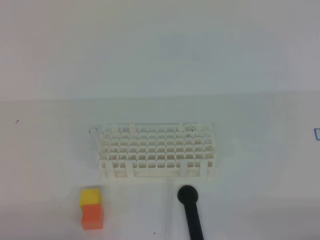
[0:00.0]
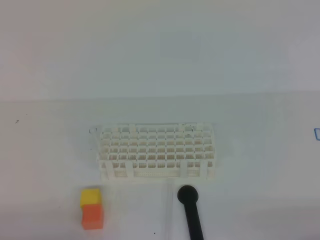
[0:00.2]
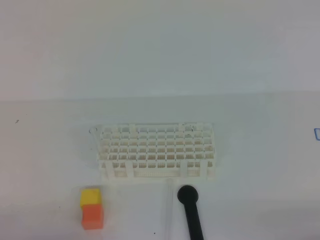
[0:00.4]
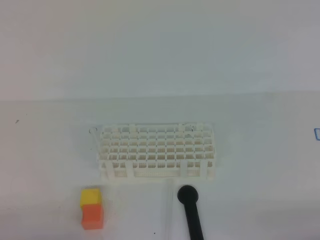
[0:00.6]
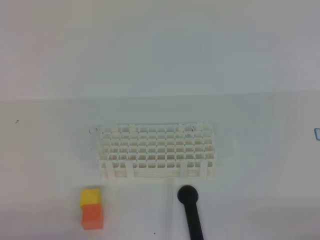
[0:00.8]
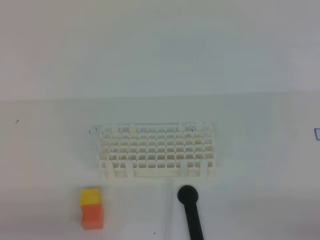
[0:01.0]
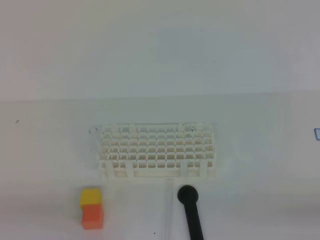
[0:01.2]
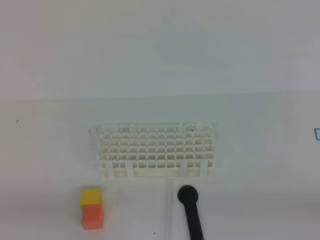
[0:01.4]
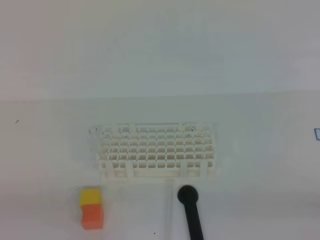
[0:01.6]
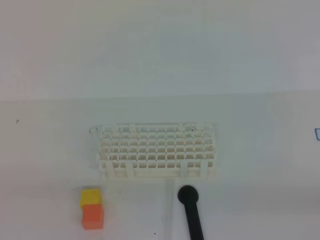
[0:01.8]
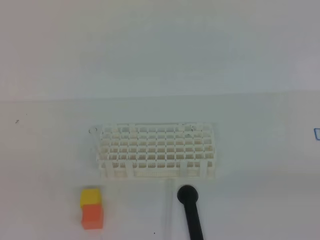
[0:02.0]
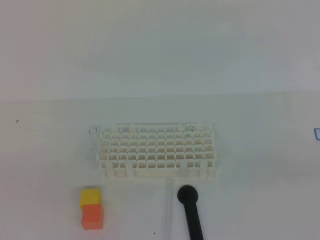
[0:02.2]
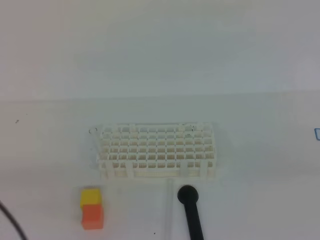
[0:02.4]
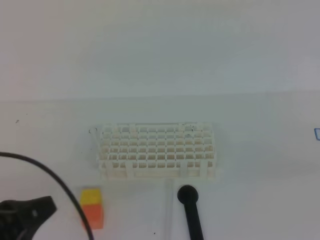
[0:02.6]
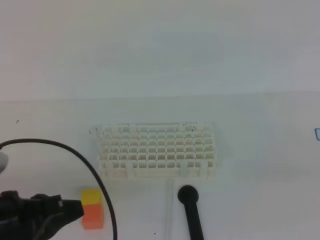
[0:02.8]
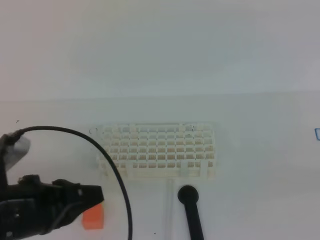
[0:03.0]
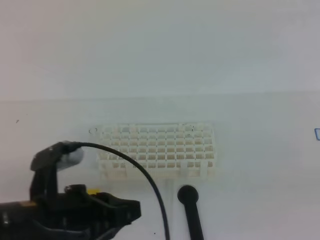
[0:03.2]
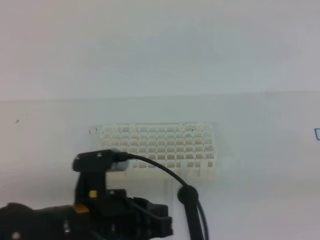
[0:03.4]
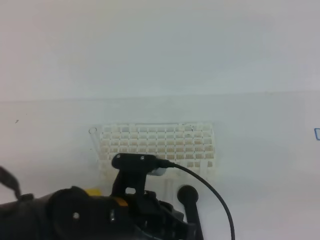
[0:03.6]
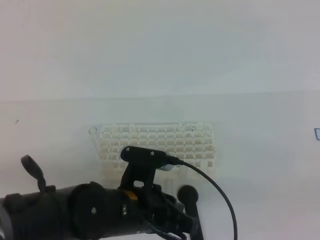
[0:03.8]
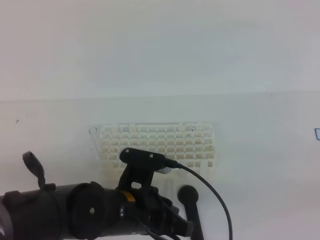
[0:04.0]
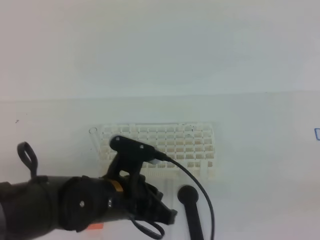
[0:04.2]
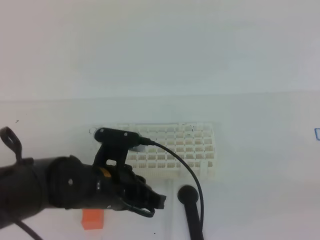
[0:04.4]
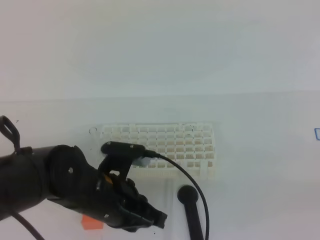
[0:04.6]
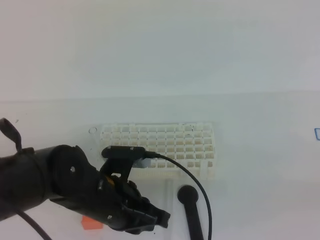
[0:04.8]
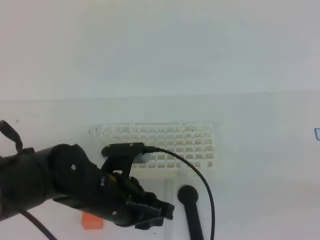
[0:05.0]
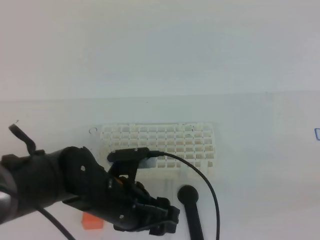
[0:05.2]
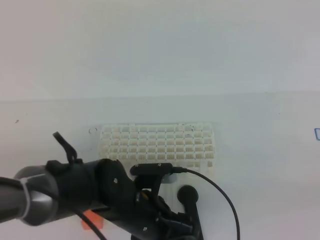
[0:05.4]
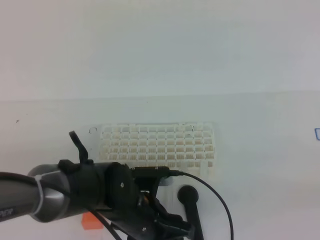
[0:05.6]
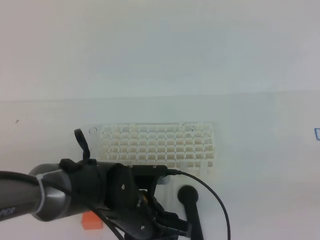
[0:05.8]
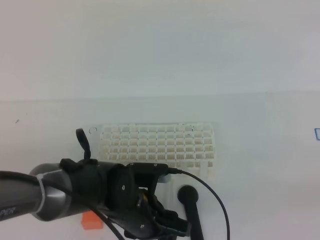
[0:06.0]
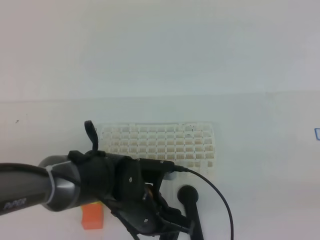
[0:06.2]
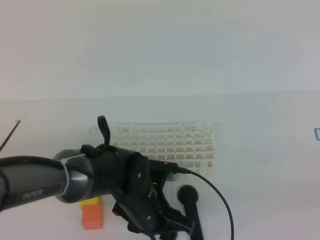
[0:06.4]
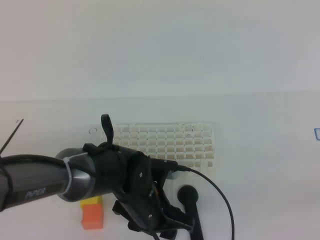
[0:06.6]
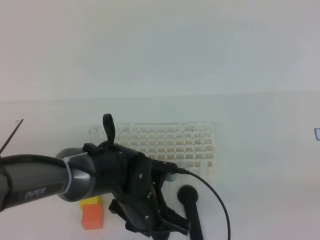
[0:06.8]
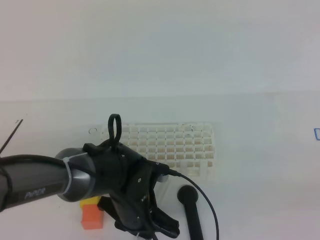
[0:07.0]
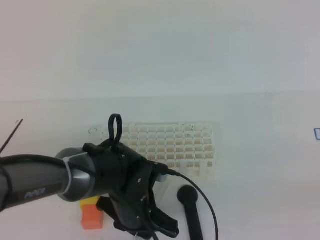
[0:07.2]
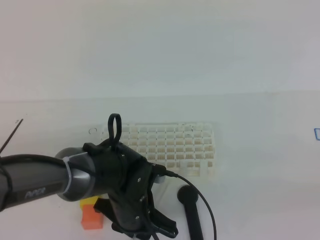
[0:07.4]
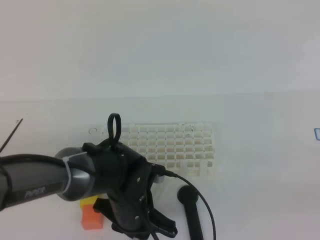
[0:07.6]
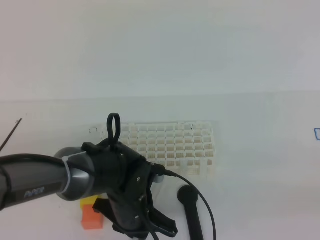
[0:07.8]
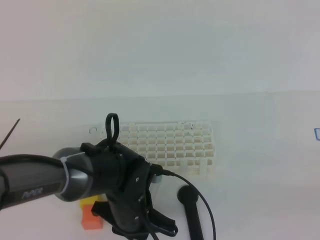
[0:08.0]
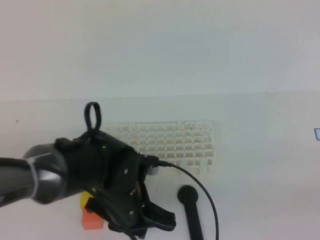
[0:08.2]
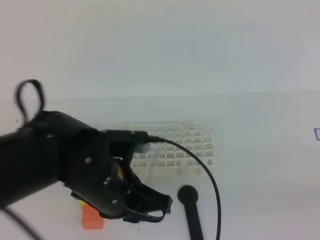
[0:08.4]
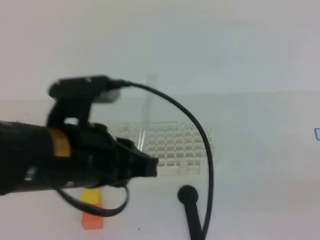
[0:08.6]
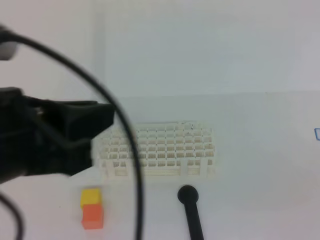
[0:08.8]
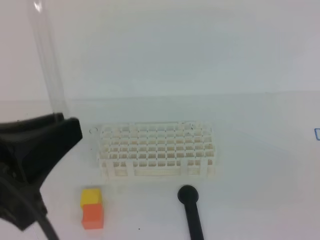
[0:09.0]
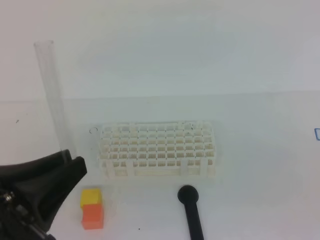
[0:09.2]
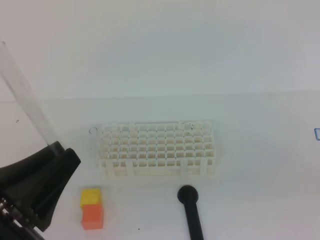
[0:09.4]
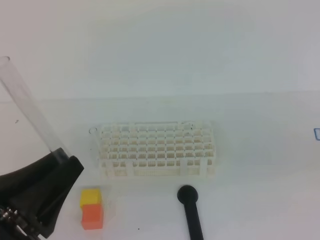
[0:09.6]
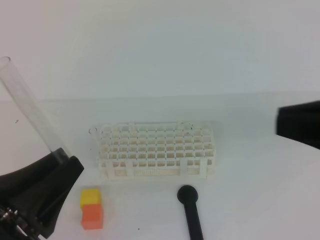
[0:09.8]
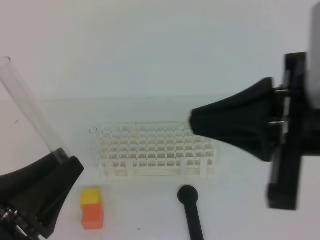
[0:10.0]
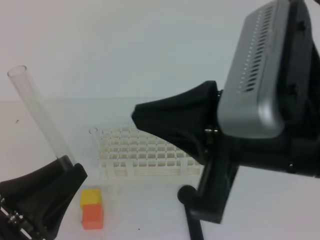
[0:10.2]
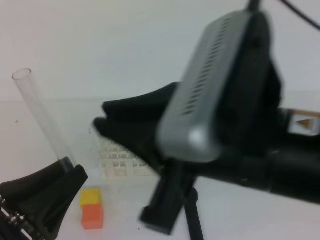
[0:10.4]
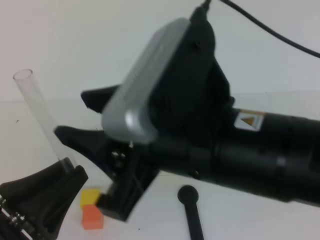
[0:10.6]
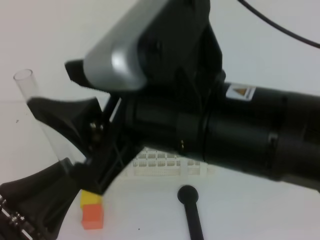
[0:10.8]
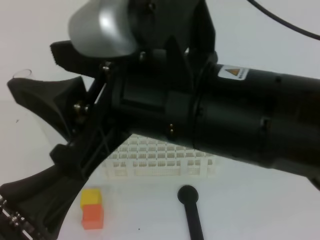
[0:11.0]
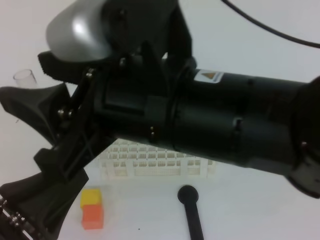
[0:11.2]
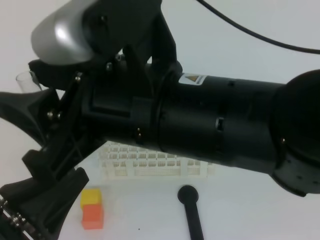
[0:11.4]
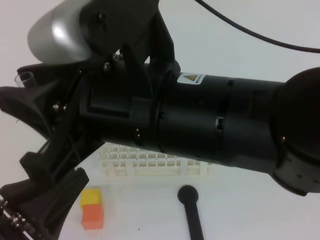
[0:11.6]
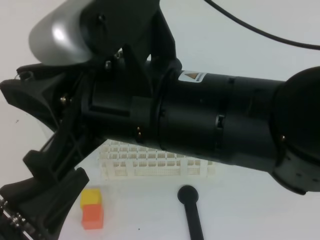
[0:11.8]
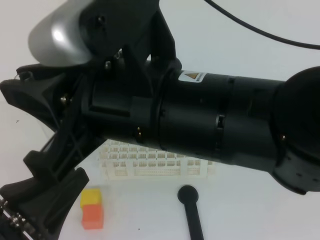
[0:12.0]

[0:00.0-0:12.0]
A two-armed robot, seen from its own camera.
0:01.6 to 0:03.0: The right gripper is displaced upward by some 10 cm; the left gripper moves forward and to the right, roughly 15 cm.
0:03.0 to 0:04.4: The left gripper goes about 15 cm to the right, forward and downward.
0:04.4 to 0:06.0: The left gripper is displaced downward by some 5 cm, and opens up.
0:06.0 to 0:07.6: The left gripper closes up.
0:07.6 to 0:09.0: The left gripper heads upward, backward and to the left, covering roughly 30 cm, and closes up.
0:09.0 to 0:10.4: The left gripper heads downward, covering some 10 cm, while the right gripper is displaced to the left and forward by roughly 25 cm.
0:10.4 to 0:12.0: The right gripper travels to the left by about 5 cm, and opens, then closes again.

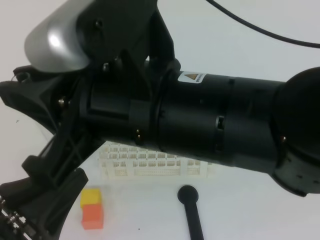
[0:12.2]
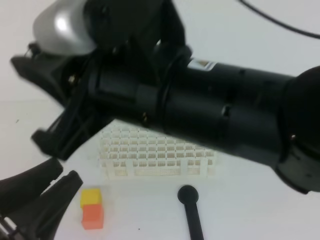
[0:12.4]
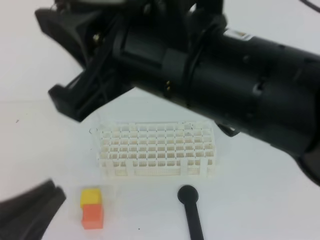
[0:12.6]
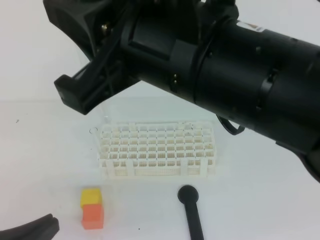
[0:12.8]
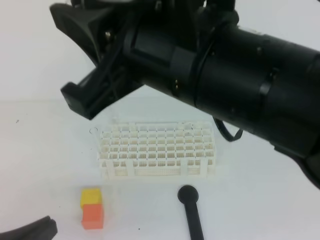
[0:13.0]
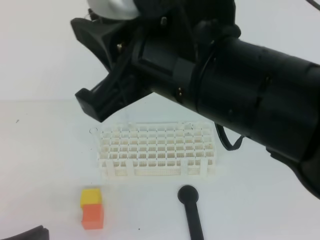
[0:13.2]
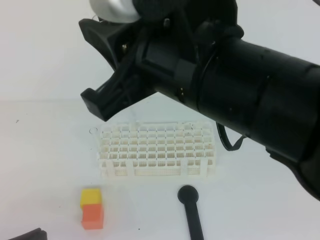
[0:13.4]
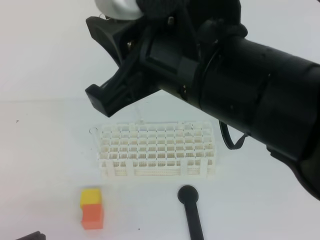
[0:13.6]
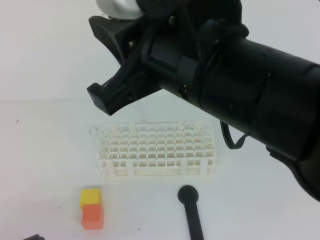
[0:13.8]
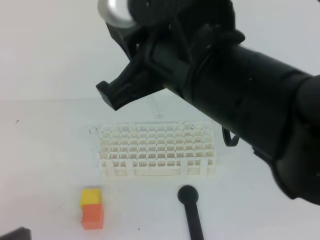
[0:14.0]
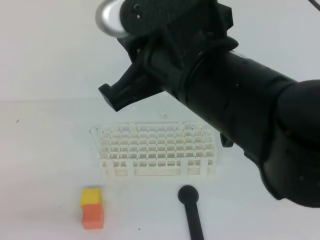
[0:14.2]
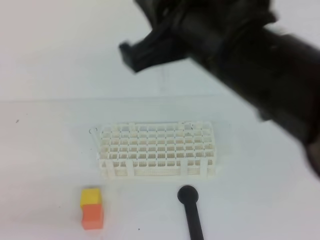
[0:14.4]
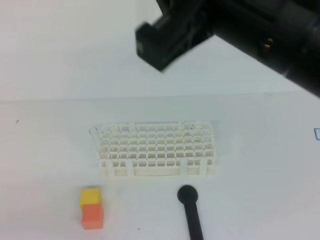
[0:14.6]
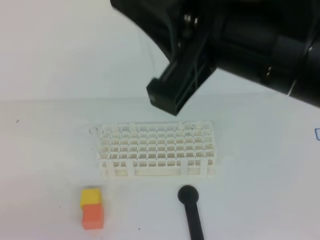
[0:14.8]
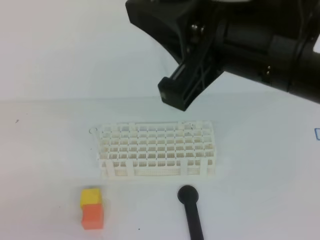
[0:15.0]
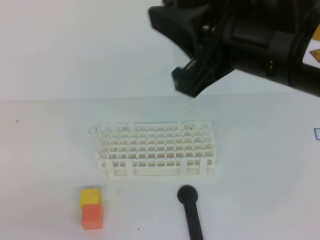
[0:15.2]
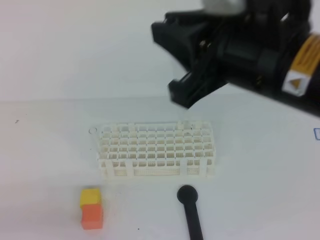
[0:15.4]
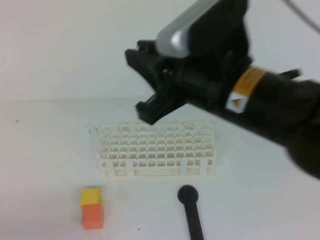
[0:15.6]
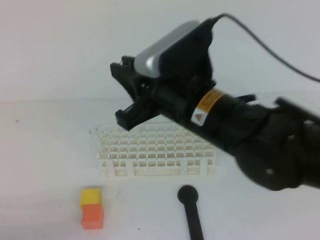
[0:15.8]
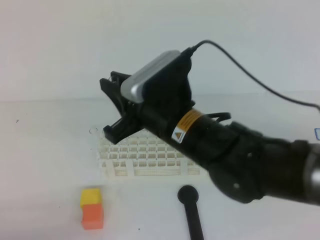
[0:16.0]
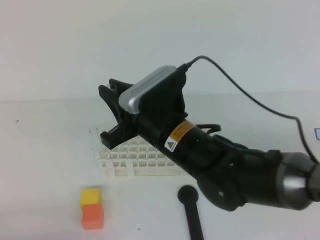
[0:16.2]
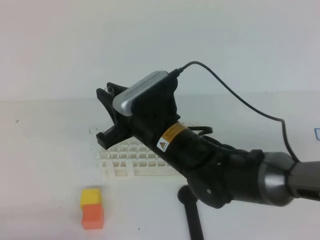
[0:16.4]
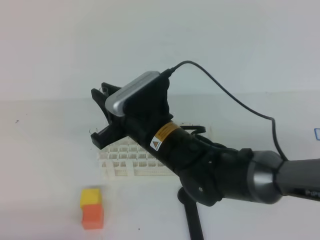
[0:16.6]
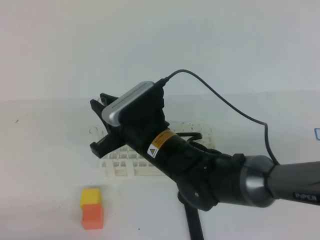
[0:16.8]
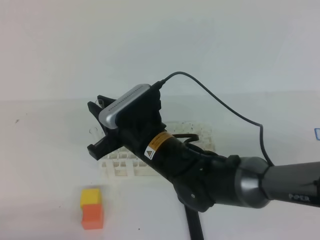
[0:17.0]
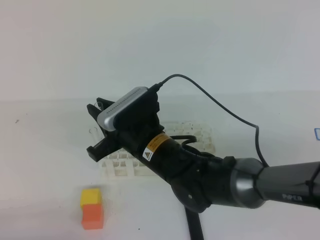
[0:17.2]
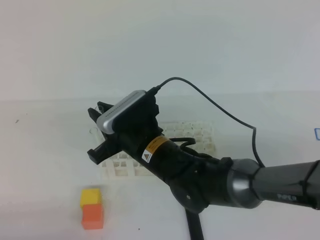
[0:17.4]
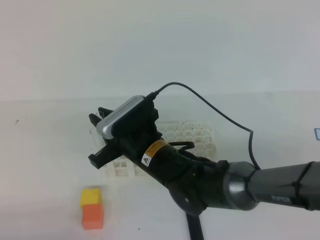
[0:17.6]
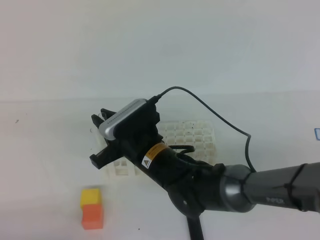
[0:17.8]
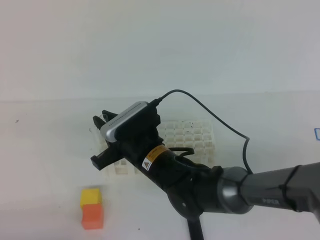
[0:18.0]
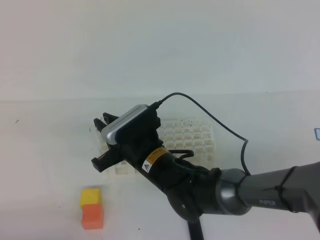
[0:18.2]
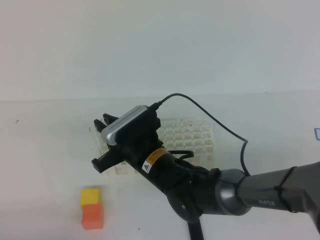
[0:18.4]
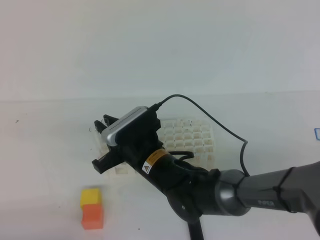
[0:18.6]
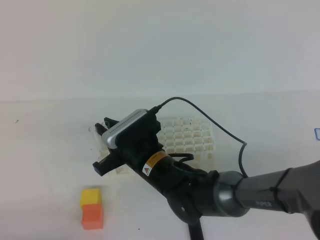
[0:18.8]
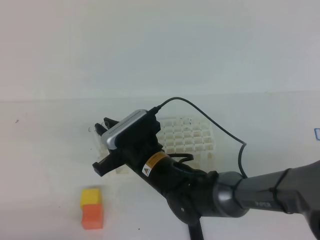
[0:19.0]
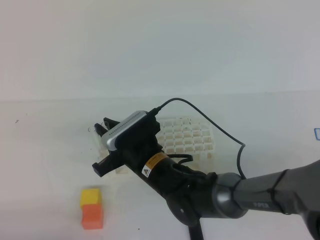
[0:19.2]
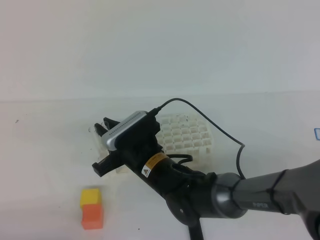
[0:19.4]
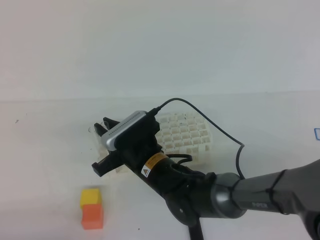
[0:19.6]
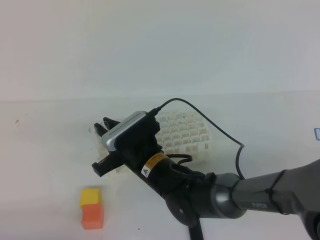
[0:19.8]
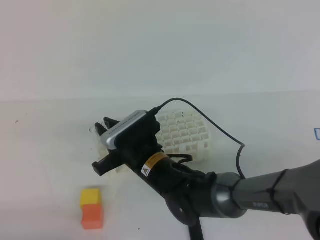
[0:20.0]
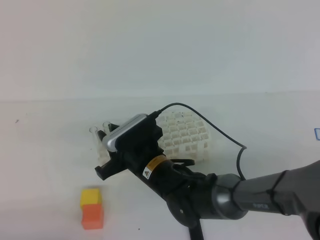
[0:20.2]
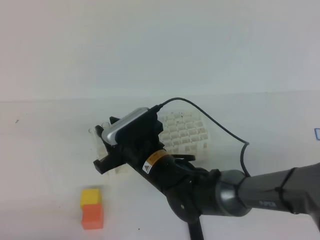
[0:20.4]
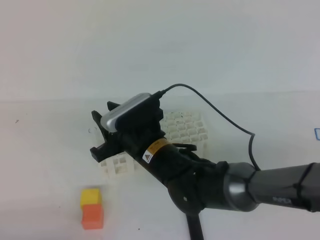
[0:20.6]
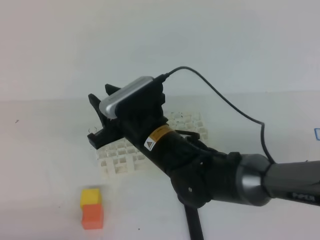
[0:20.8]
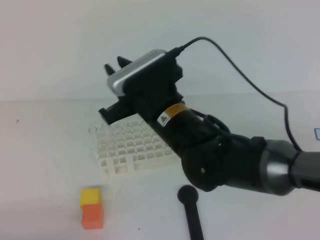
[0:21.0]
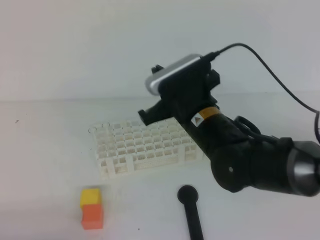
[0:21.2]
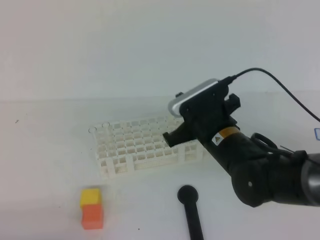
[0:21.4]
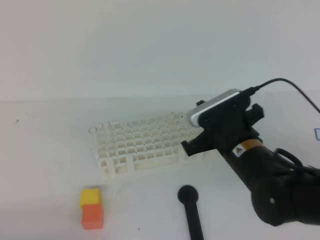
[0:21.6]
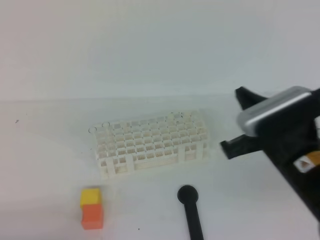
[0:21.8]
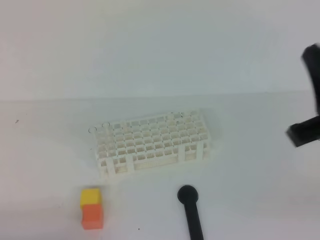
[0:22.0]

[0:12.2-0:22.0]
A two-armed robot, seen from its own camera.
0:12.2 to 0:13.6: The left gripper ends up some 5 cm from where it was, and closes.
0:13.6 to 0:15.0: The left gripper travels to the left by approximately 5 cm, while the right gripper shifts by approximately 5 cm.
0:15.0 to 0:16.4: The left gripper is displaced downward by about 5 cm. Meanwhile the right gripper shifts about 25 cm downward, forward and to the left.
0:16.4 to 0:17.8: The right gripper heads downward, covering approximately 5 cm.
0:17.8 to 0:19.2: There are only small adjustments of the grippers.
0:19.2 to 0:20.6: The right gripper opens.
0:20.6 to 0:22.0: The right gripper is displaced to the right, upward and backward by about 30 cm, and closes its fingers.
